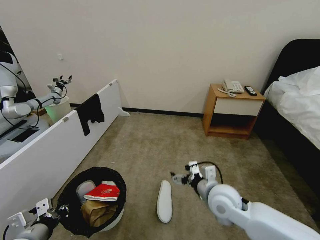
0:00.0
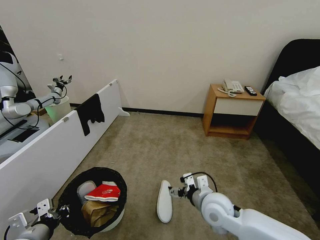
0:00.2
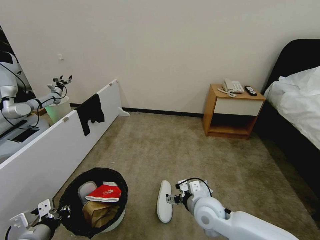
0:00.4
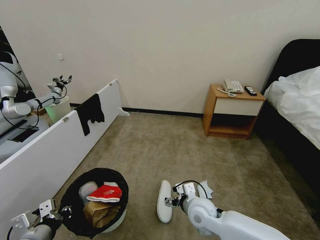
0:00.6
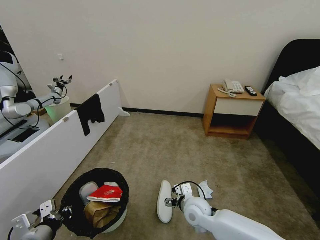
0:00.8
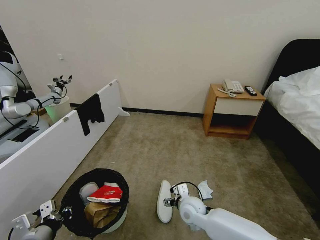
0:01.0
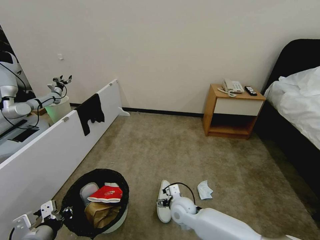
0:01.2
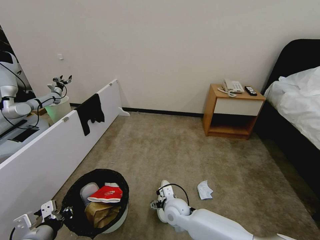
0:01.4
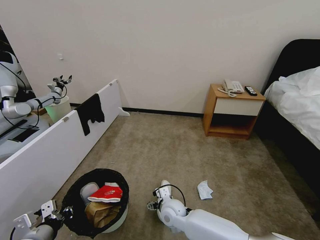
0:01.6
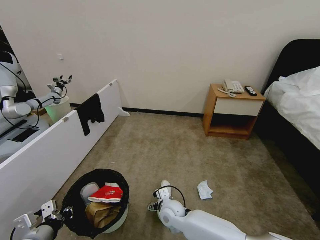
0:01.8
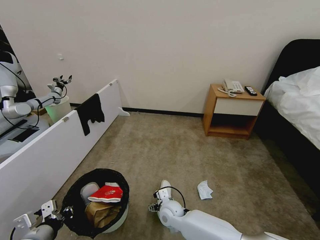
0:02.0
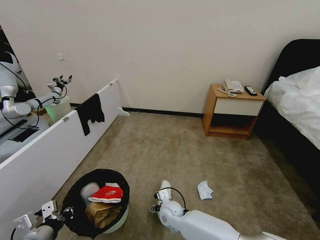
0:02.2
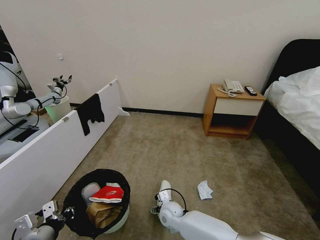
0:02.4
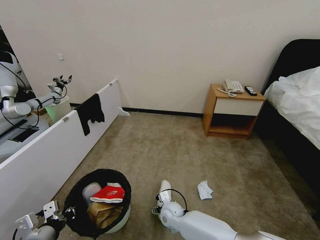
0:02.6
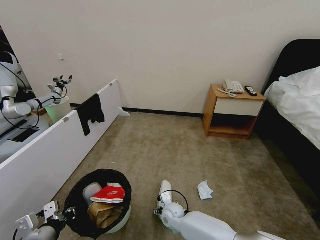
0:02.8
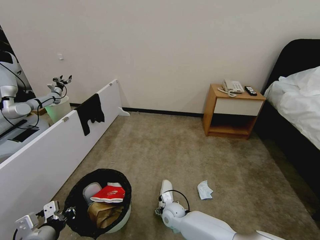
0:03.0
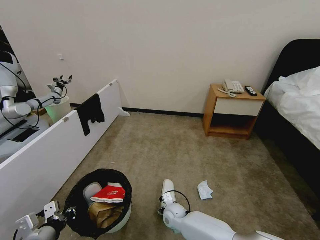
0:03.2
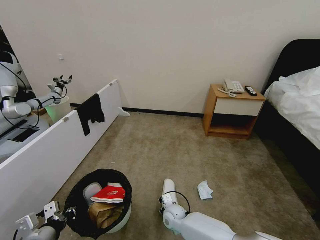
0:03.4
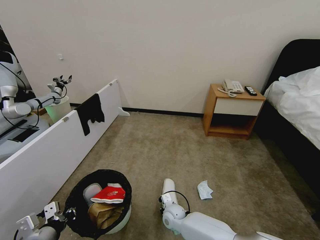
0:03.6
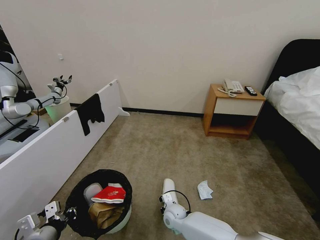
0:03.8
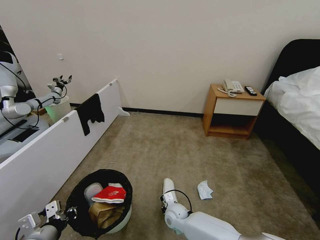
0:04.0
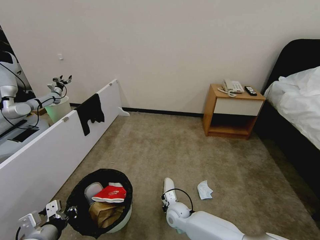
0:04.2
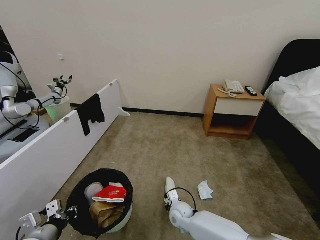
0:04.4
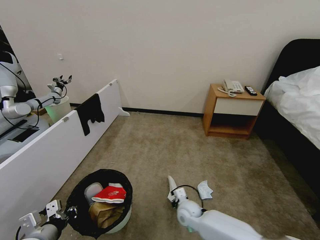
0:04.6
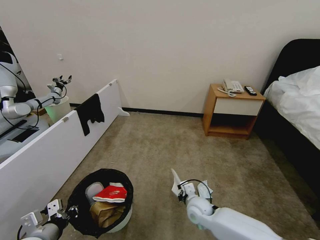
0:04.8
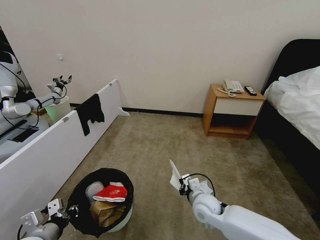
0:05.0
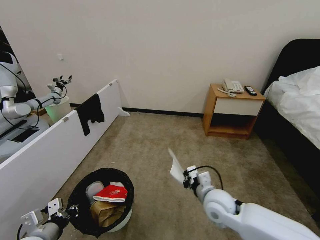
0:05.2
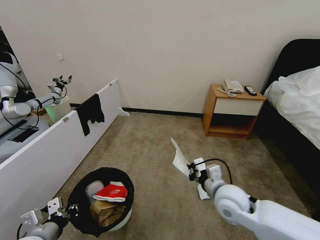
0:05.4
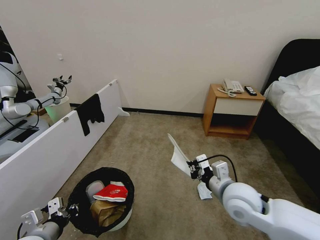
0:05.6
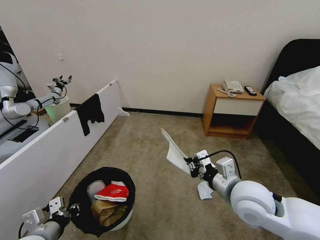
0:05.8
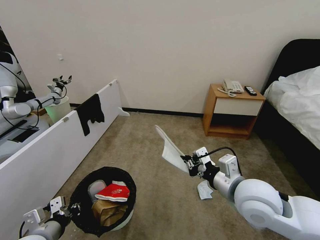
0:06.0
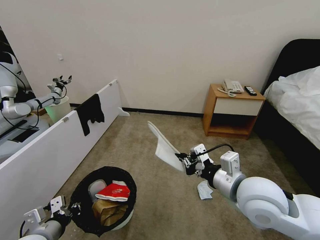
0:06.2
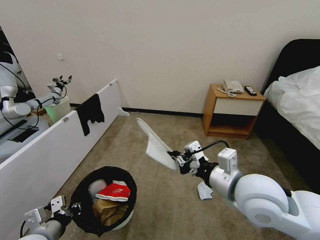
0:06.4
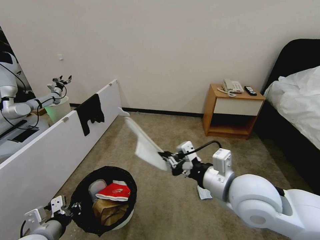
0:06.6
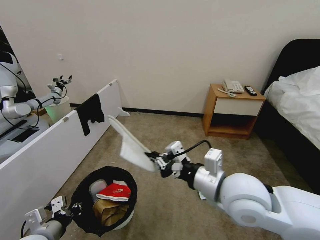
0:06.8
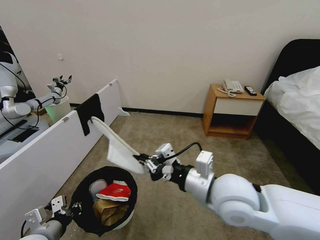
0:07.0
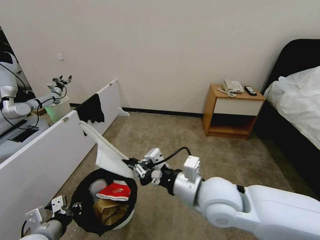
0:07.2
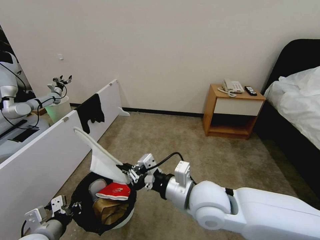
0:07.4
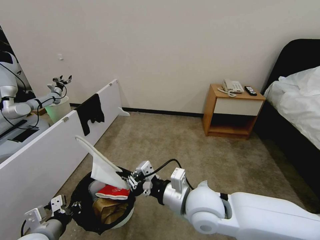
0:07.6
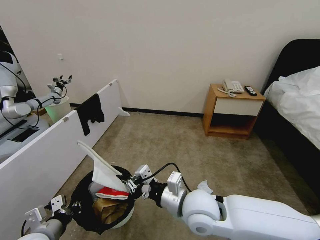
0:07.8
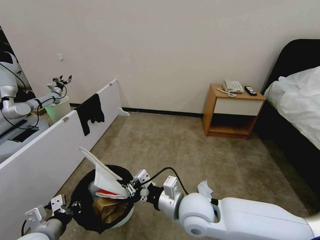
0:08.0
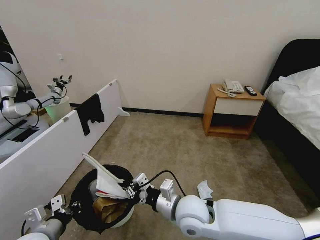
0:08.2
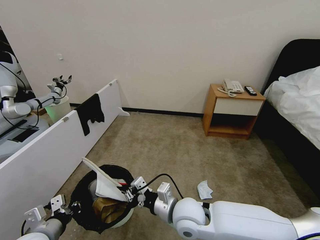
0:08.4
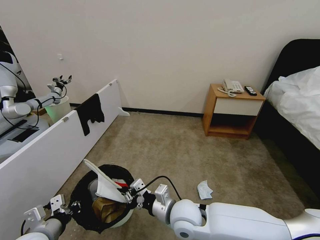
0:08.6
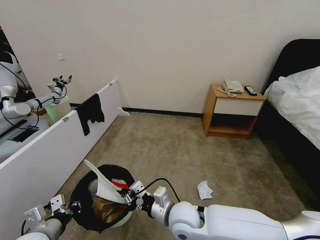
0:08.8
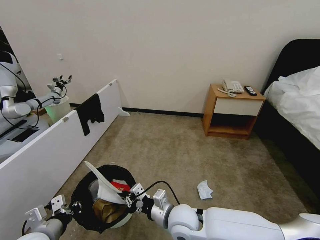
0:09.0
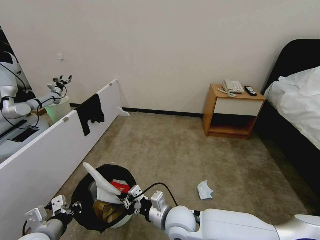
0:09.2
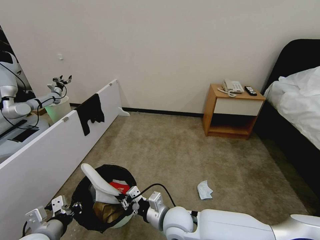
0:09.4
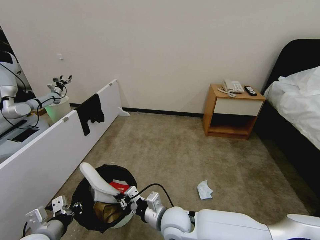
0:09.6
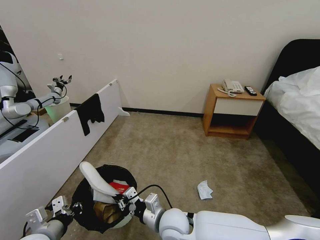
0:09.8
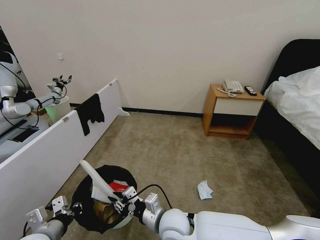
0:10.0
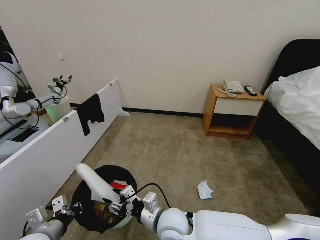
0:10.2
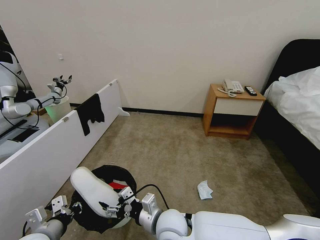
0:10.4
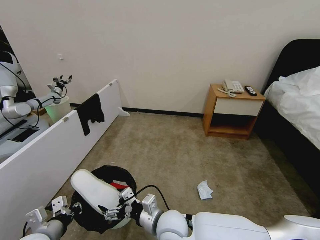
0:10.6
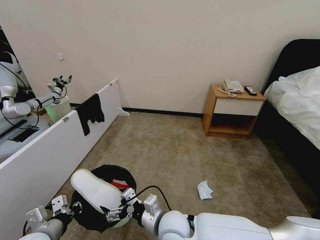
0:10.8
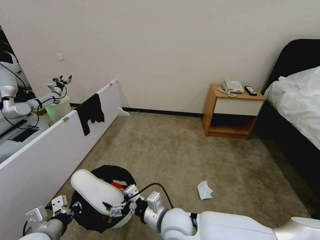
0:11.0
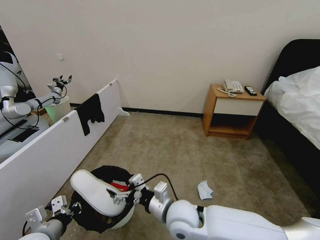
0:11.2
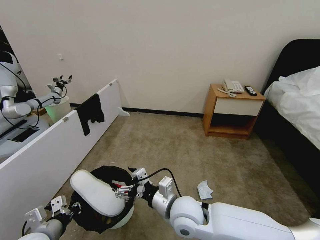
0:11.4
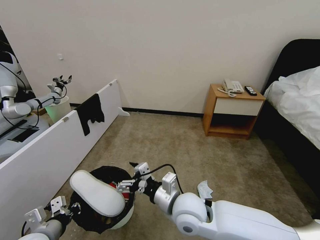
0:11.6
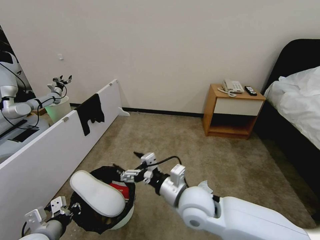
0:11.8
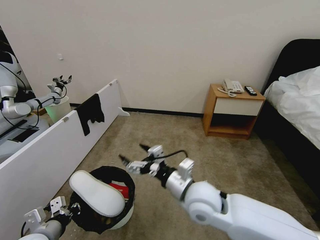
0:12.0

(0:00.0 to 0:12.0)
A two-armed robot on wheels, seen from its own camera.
Task of the whole recording: Pick up the trash bin, then pick up the garbage from the floor and place it into the trash bin.
0:00.0 - 0:01.6: The right gripper is displaced downward and to the left by some 20 cm.
0:01.6 - 0:03.0: The right gripper is displaced downward by roughly 5 cm.
0:03.0 - 0:04.4: The right gripper closes its fingers.
0:04.4 - 0:06.0: The right gripper moves upward and to the right, approximately 35 cm.
0:06.0 - 0:07.6: The right gripper travels to the left by roughly 10 cm.
0:07.6 - 0:09.0: The right gripper is displaced downward by roughly 10 cm.
0:09.0 - 0:10.4: The right gripper opens its fingers.
0:10.4 - 0:12.0: The right gripper is displaced upward and to the right by approximately 15 cm.

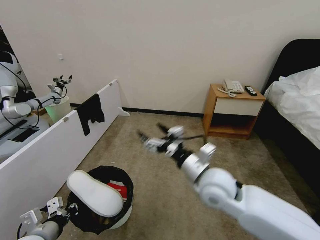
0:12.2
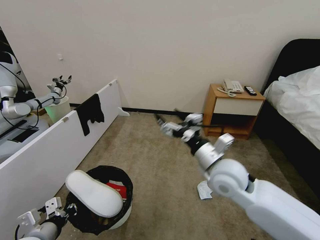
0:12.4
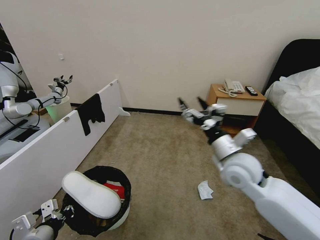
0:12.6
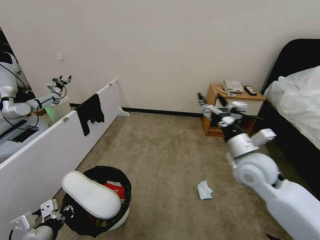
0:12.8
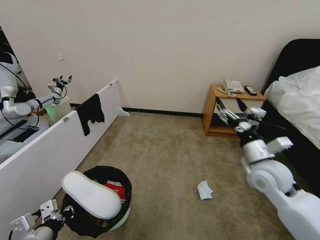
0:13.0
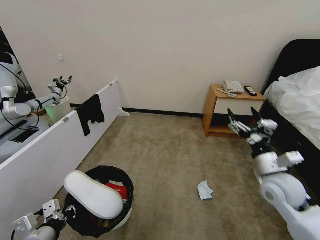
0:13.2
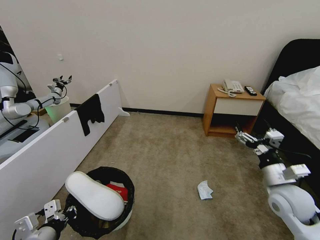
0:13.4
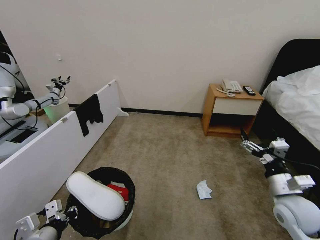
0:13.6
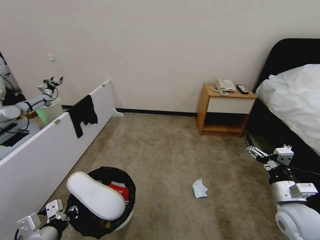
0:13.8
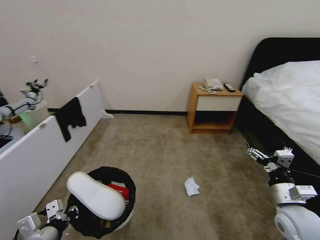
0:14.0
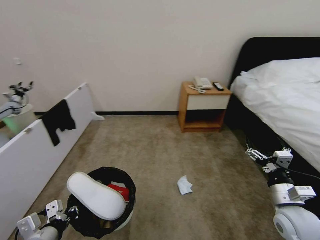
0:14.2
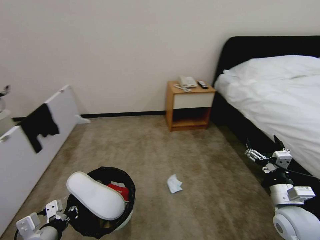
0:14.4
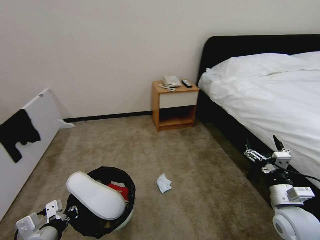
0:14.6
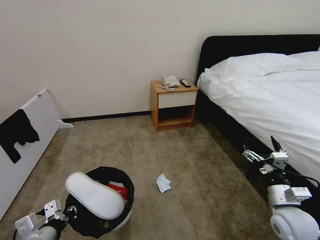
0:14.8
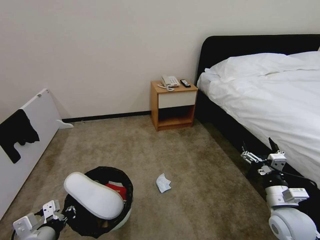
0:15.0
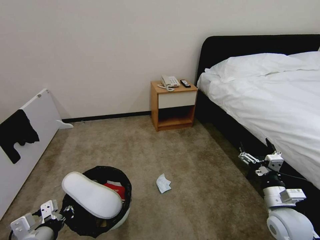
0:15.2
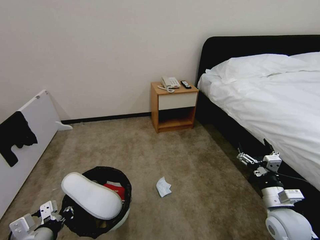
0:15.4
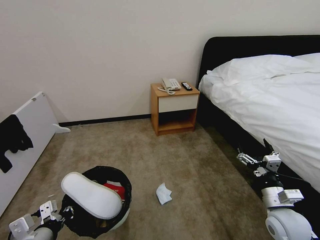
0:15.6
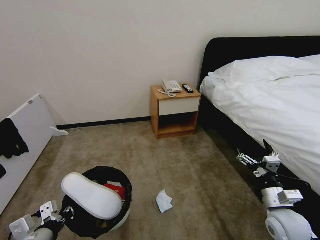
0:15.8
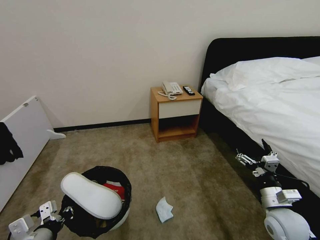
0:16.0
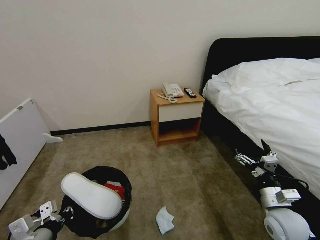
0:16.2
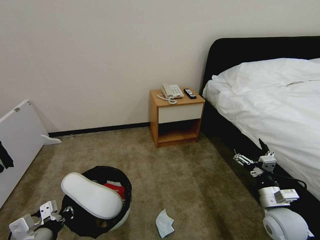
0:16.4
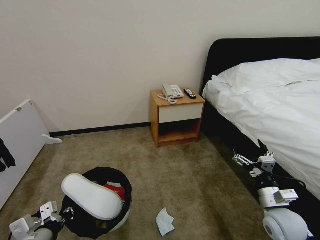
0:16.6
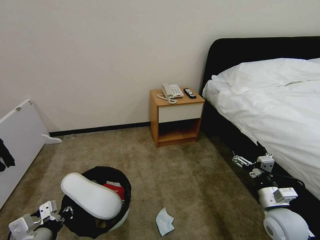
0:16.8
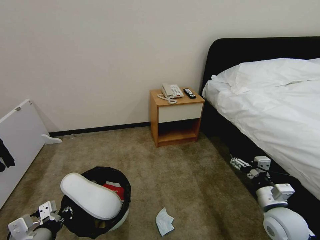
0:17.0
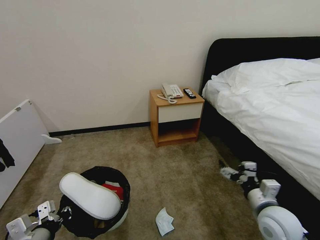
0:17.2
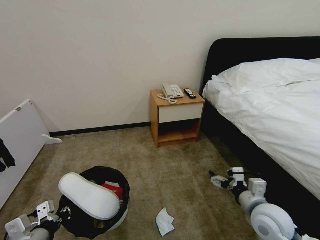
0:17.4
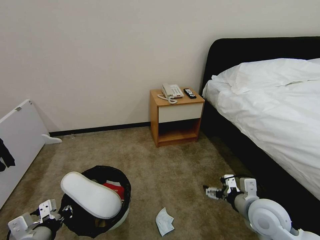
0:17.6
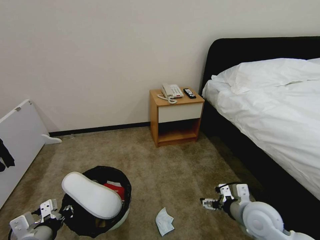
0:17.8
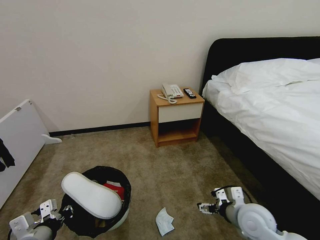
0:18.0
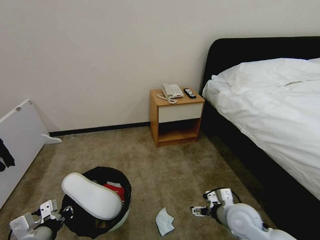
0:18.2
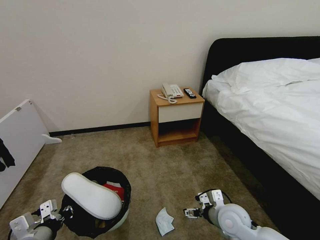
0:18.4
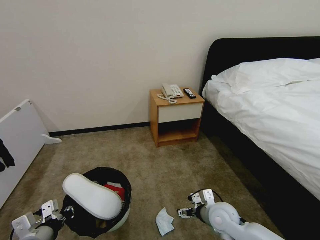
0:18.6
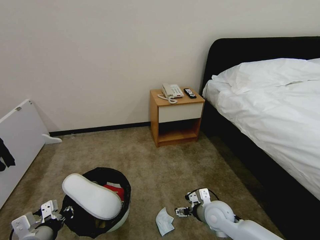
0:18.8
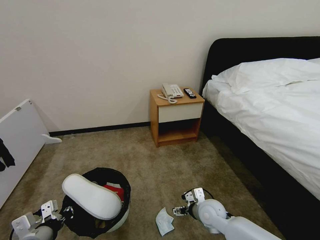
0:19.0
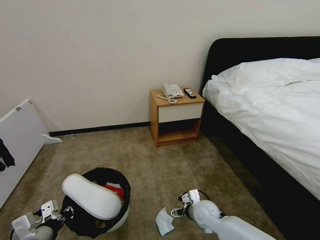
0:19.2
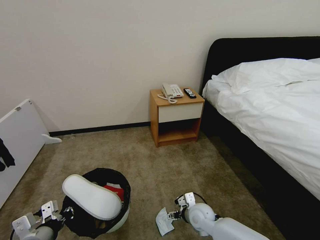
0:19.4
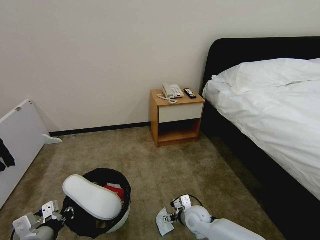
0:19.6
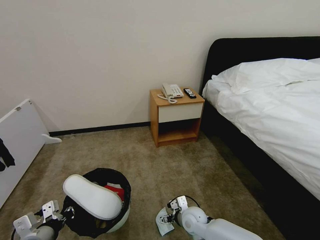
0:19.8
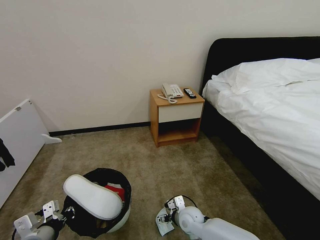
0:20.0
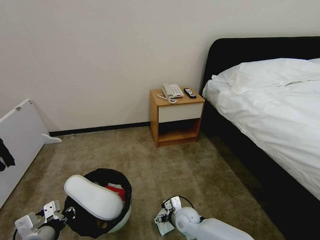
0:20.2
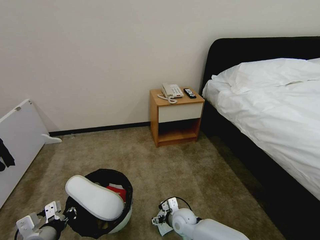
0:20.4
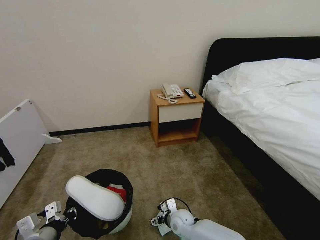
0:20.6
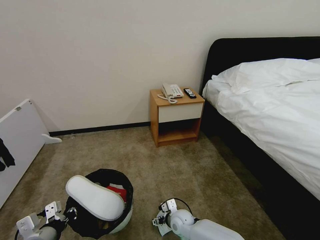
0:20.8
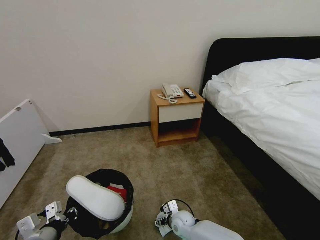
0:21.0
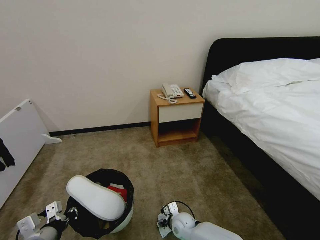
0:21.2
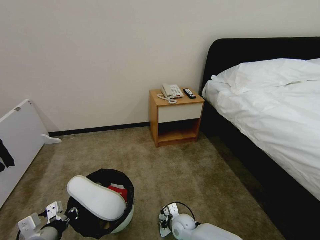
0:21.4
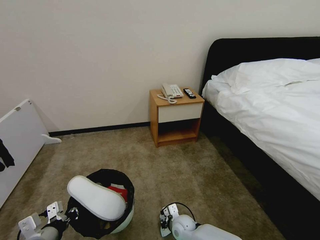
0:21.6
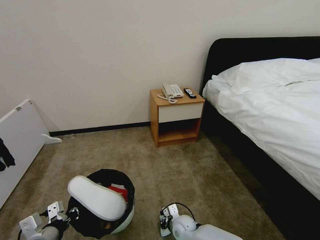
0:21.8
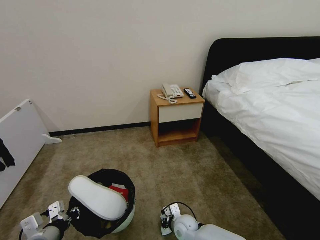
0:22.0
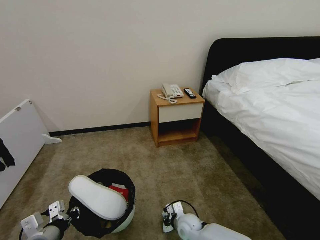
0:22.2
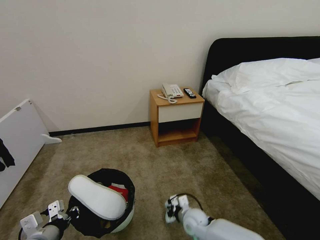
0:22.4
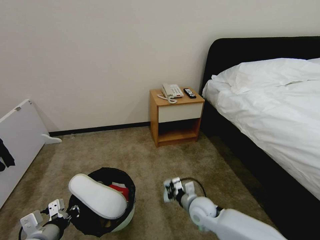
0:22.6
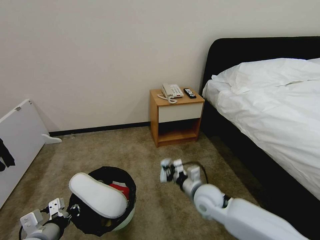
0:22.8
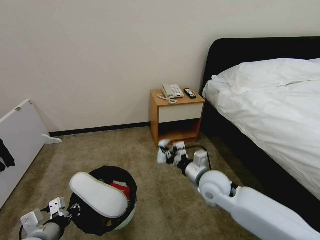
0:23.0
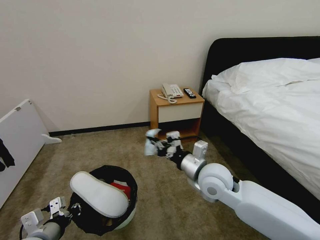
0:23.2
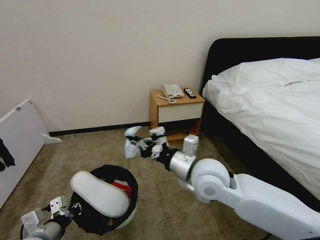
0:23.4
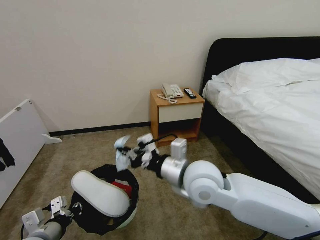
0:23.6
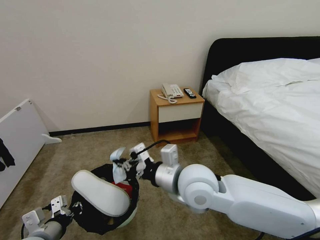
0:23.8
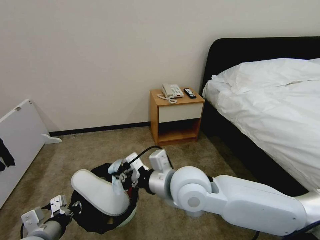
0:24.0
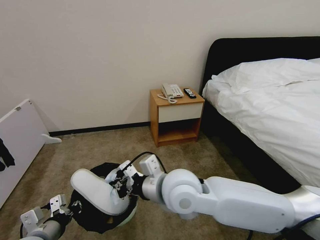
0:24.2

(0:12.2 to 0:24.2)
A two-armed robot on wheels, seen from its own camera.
Task of the whole recording: Pick up the trash bin, then pick up the garbage from the floor and place it into the trash bin.
0:12.2 - 0:13.8: The right gripper shifts some 25 cm to the right.
0:16.6 - 0:18.2: The right gripper heads to the left, covering roughly 10 cm.
0:18.2 - 0:19.8: The right gripper is displaced downward and to the left by some 20 cm.
0:19.8 - 0:21.2: The right gripper travels downward by about 5 cm.
0:21.2 - 0:22.6: The right gripper goes about 15 cm upward and to the right, and closes up.
0:22.6 - 0:24.2: The right gripper goes about 30 cm upward and to the left.
